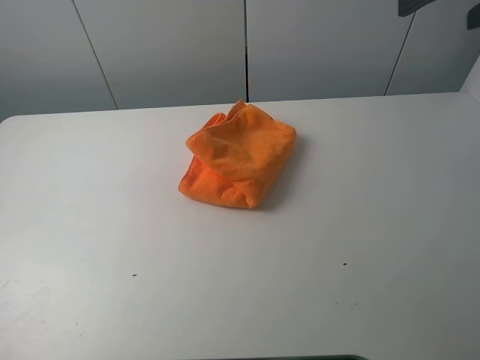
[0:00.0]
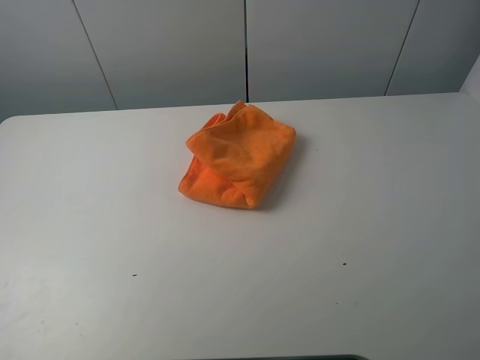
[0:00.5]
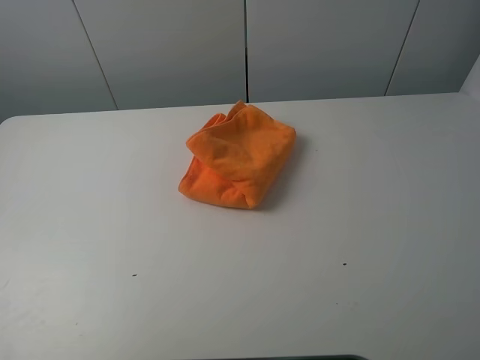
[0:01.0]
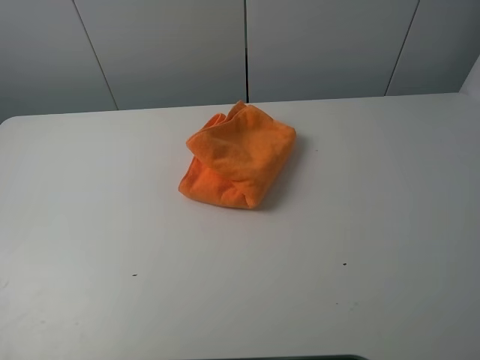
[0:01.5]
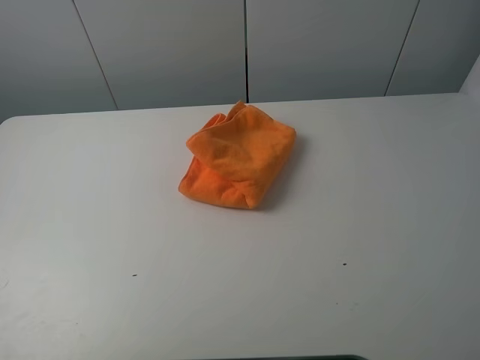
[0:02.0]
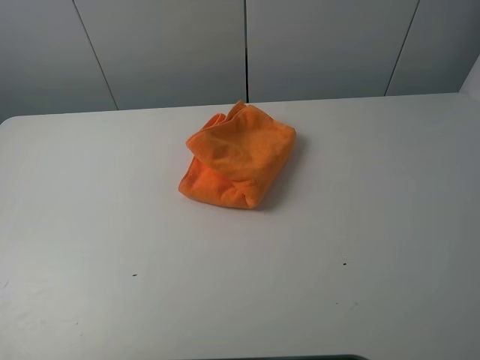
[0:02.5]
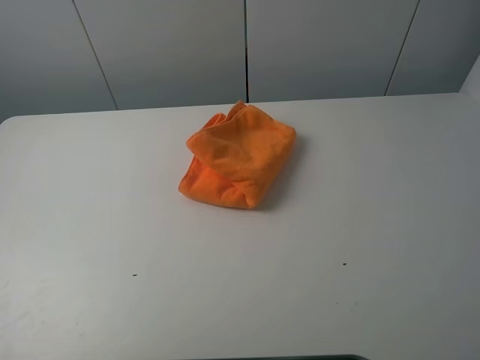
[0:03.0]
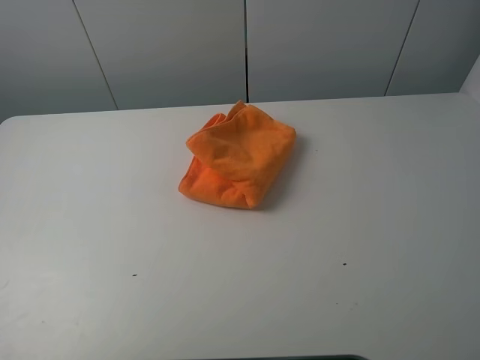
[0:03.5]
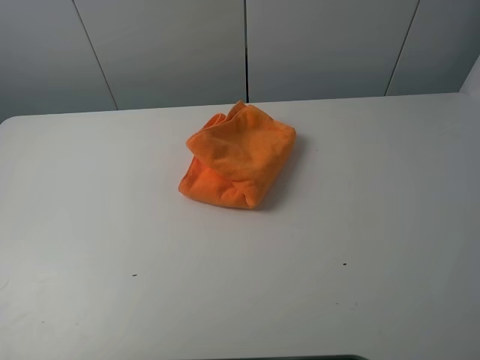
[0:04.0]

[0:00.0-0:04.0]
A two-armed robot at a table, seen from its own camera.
Task of the whole recording: fold the towels on the table.
0:00.0 to 0:02.0: The right gripper moves backward, roughly 30 cm, while the left gripper travels backward and downward by about 30 cm.
